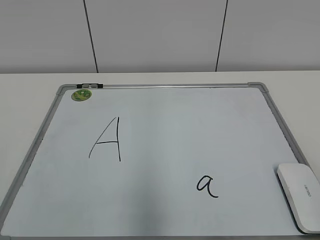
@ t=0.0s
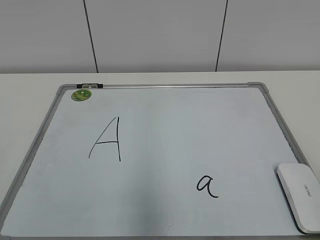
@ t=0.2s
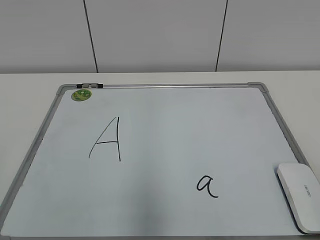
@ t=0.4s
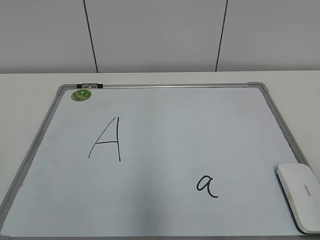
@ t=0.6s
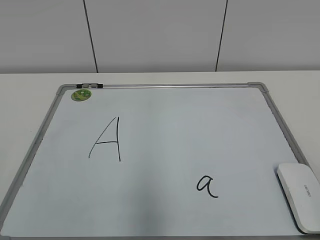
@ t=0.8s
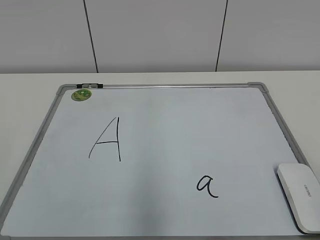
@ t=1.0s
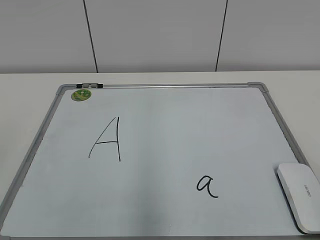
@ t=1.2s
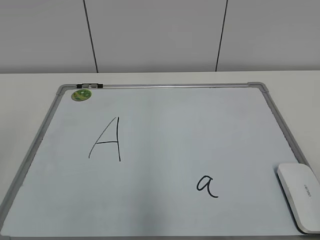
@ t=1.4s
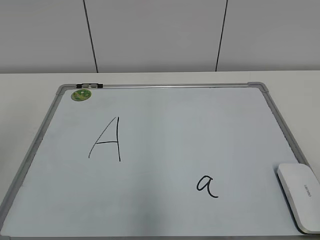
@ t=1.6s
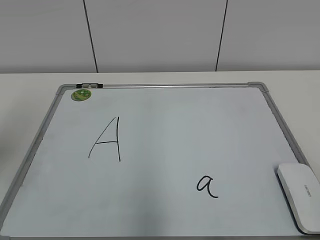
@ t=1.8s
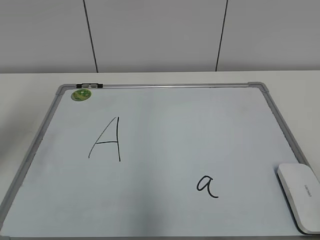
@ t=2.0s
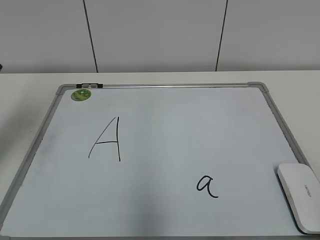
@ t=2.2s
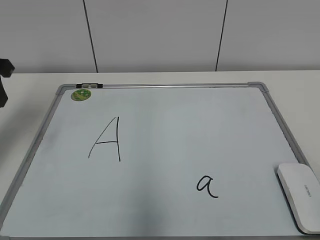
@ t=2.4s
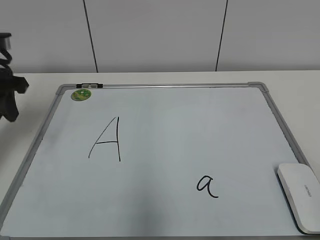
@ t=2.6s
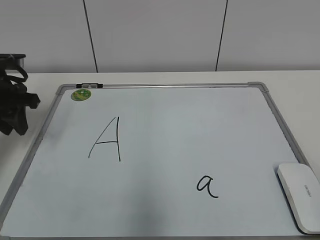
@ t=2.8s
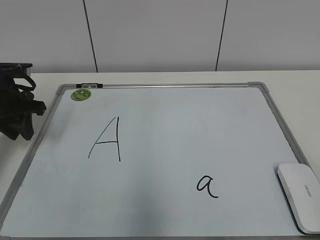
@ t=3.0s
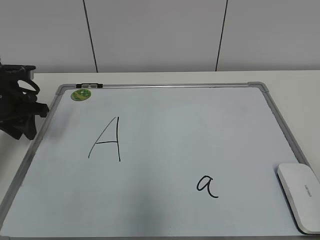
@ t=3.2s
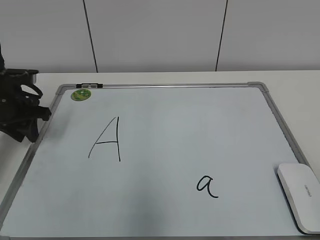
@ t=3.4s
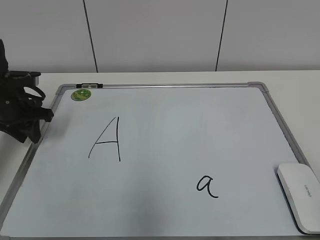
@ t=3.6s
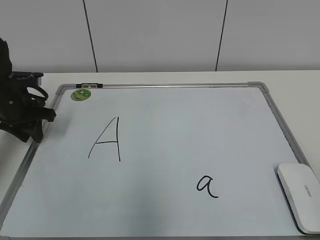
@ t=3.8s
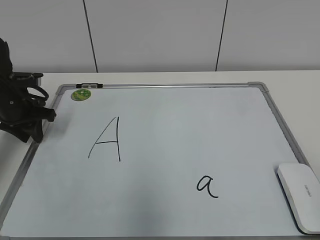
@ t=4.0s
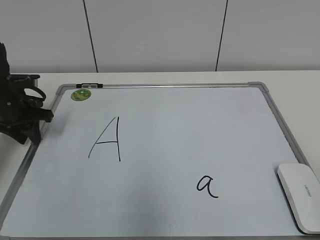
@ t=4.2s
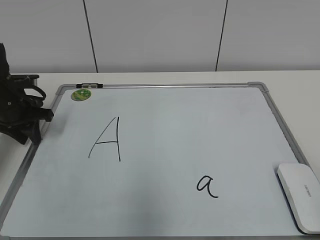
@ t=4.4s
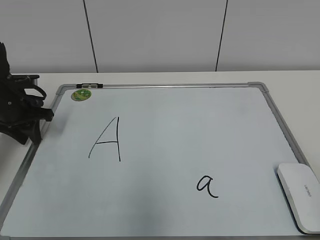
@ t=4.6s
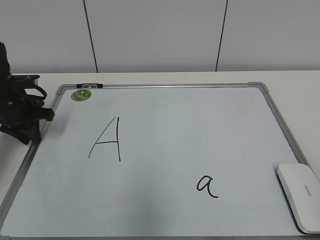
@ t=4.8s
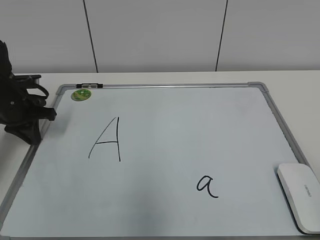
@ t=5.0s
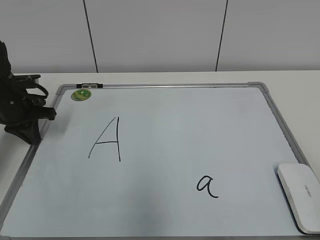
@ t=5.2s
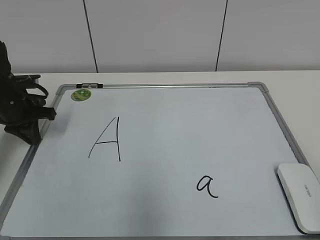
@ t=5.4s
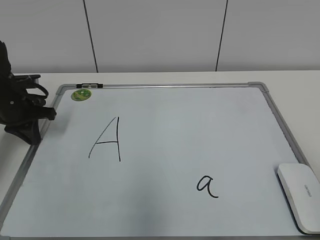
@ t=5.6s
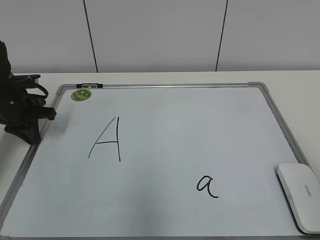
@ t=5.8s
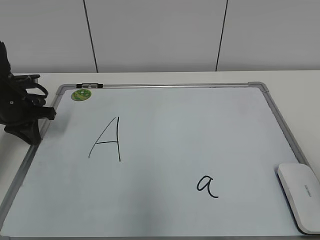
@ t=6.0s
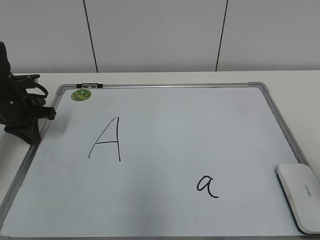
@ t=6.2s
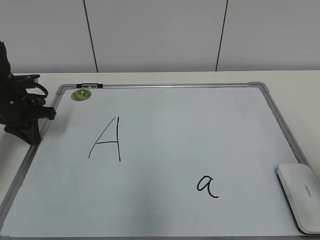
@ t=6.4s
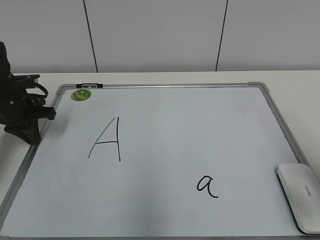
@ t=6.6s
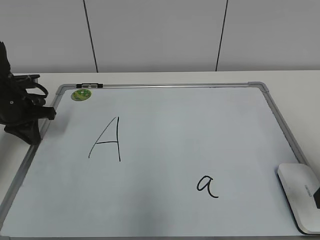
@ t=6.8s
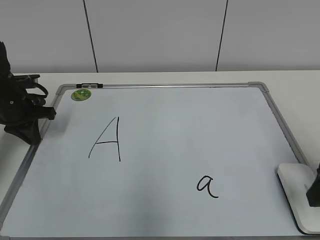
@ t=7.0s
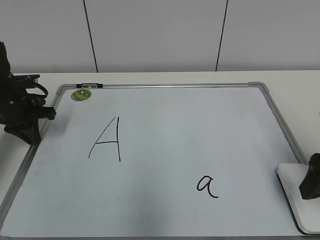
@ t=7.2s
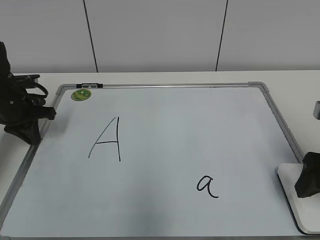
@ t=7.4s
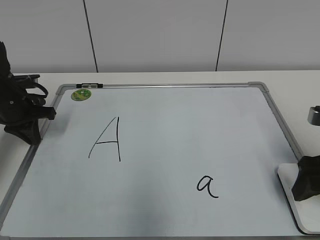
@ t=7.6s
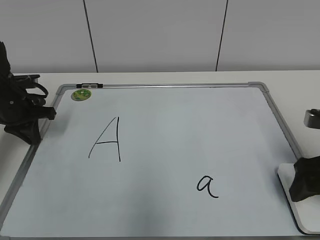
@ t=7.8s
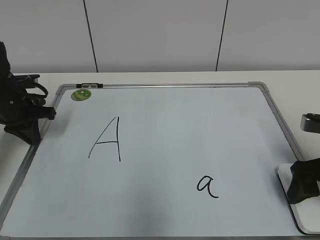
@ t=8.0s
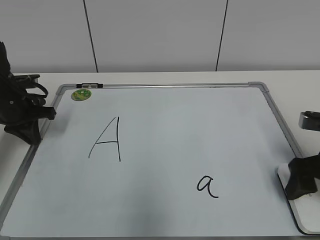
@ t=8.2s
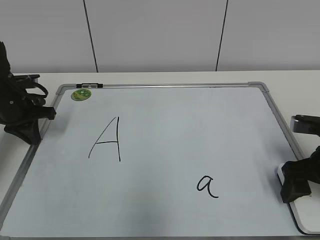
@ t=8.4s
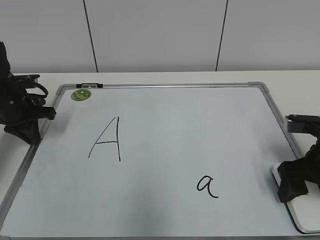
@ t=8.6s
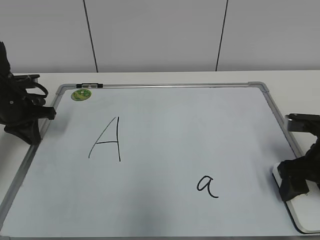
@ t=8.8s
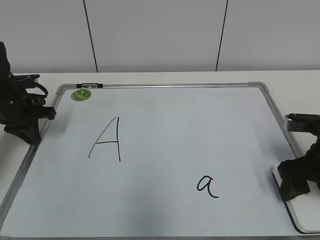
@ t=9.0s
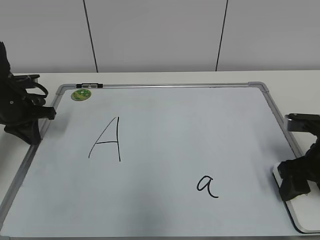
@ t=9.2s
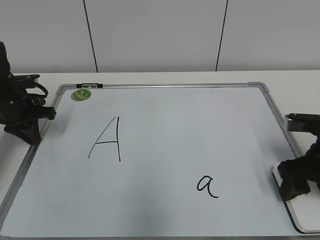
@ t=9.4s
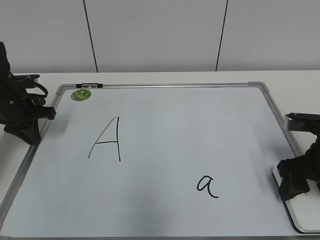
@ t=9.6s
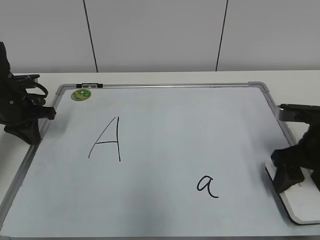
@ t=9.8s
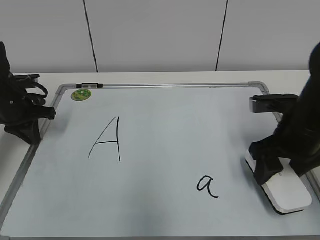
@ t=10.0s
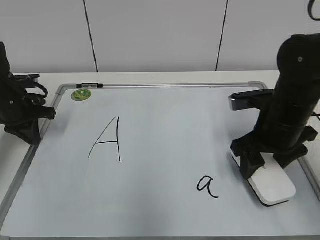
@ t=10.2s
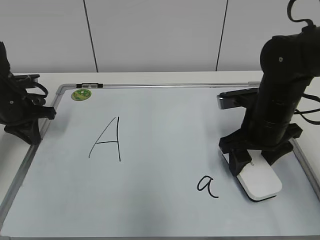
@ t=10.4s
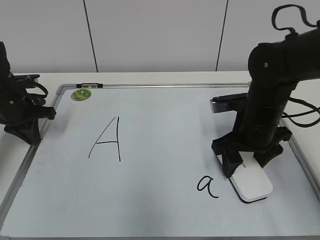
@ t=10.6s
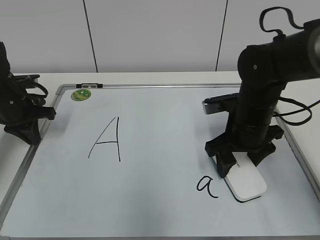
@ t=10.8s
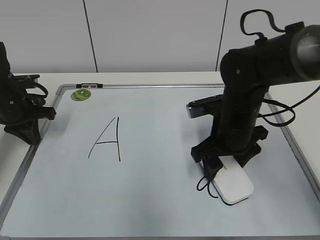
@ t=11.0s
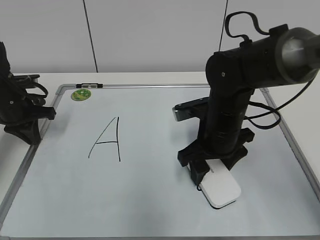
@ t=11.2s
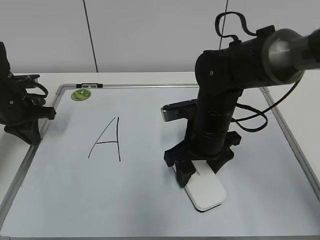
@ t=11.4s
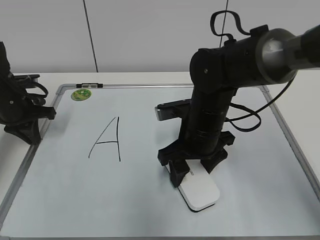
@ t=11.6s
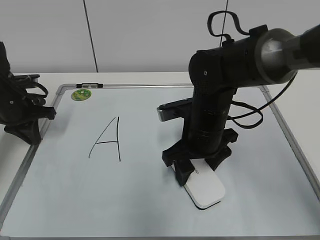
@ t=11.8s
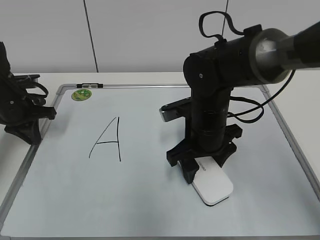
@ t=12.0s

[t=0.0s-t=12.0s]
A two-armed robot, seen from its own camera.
Task of the whole recording: pick up the eraser on the blackboard and erase the letter "a".
Step, t=0.0s to t=5.6s: Hold the drawing board steady with your left hand.
Step, t=6.0s to t=9.0s: Grab the eraser with your right hand.
t=1.6s to t=3.0s: The left gripper is displaced forward and downward by about 30 cm.
t=3.0s to t=4.4s: The left gripper shifts by approximately 5 cm.
t=6.0s to t=7.6s: The right gripper goes approximately 20 cm forward and downward, and opens up.
t=7.6s to t=9.0s: The right gripper closes its fingers.
t=9.0s to t=10.4s: The right gripper heads to the left and forward, covering some 10 cm.
t=10.4s to t=12.0s: The right gripper is displaced to the left by approximately 10 cm.

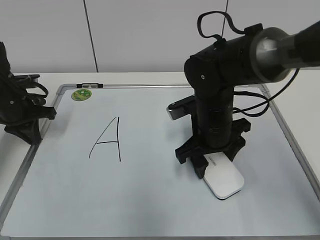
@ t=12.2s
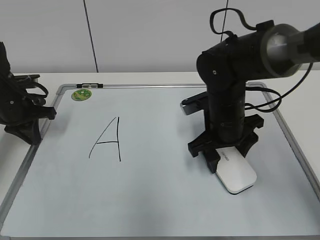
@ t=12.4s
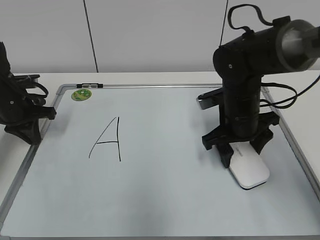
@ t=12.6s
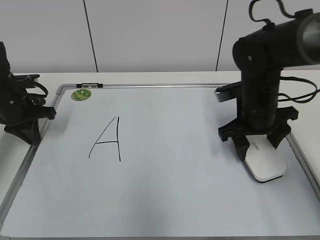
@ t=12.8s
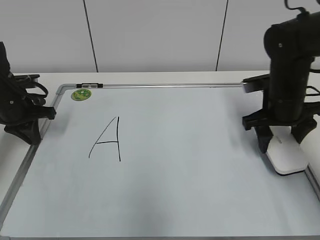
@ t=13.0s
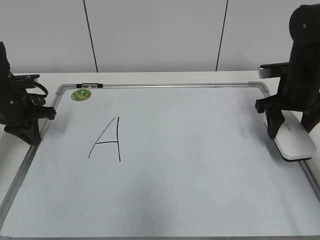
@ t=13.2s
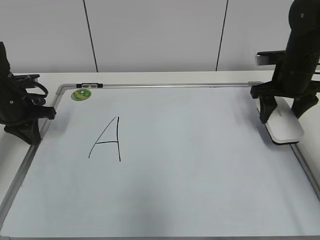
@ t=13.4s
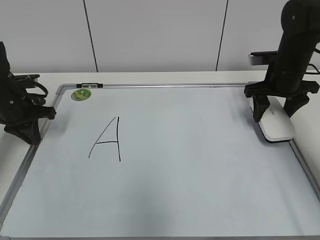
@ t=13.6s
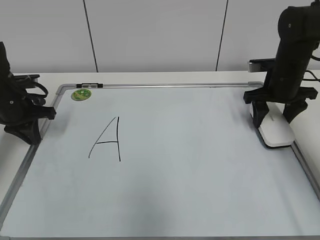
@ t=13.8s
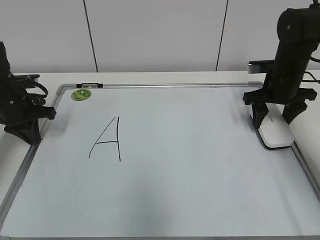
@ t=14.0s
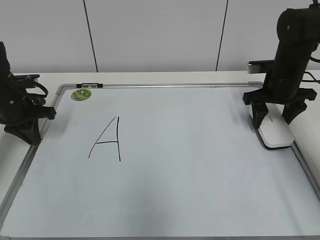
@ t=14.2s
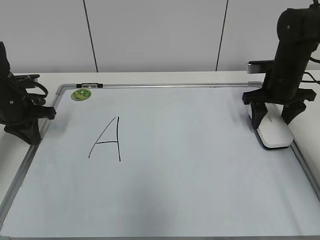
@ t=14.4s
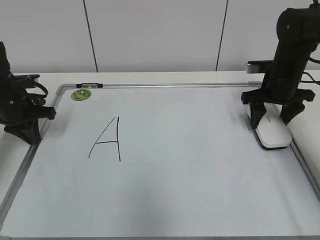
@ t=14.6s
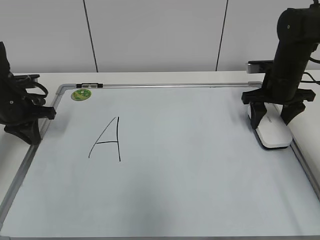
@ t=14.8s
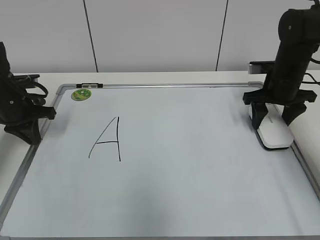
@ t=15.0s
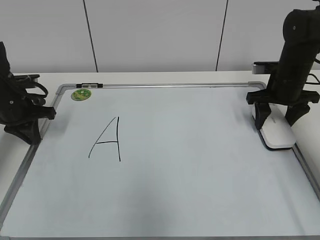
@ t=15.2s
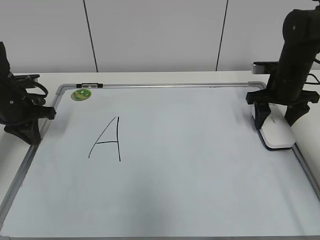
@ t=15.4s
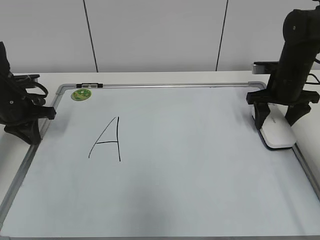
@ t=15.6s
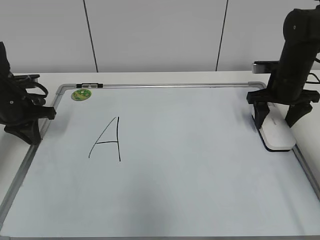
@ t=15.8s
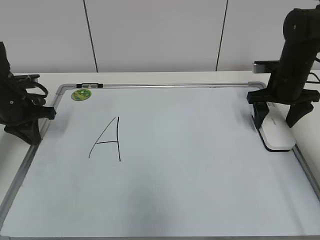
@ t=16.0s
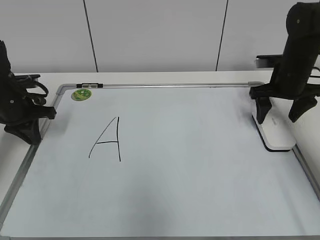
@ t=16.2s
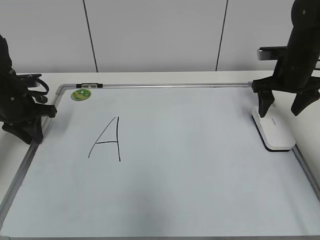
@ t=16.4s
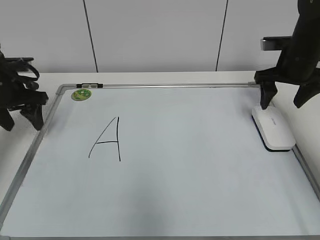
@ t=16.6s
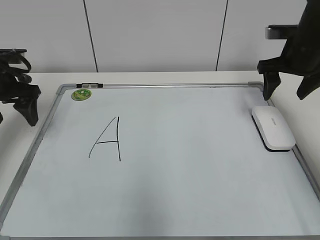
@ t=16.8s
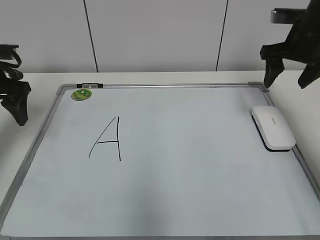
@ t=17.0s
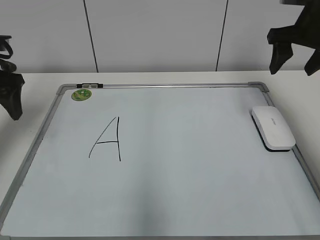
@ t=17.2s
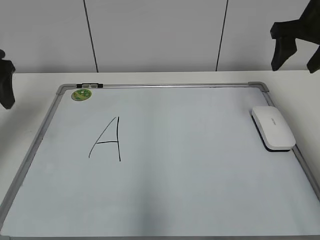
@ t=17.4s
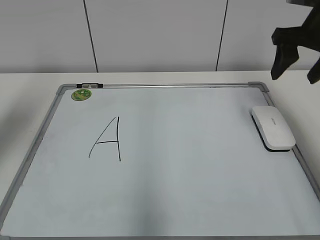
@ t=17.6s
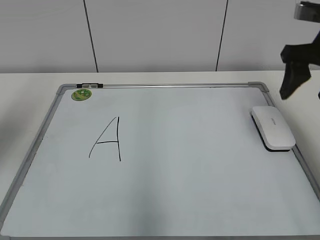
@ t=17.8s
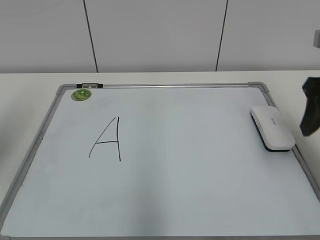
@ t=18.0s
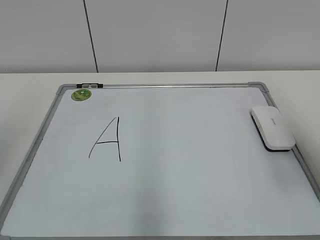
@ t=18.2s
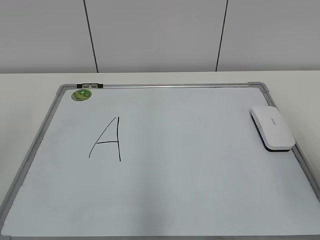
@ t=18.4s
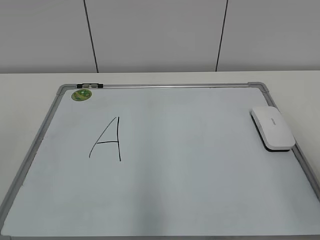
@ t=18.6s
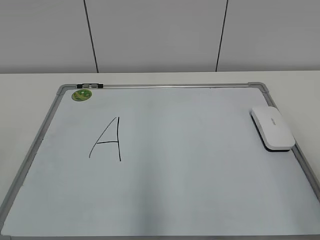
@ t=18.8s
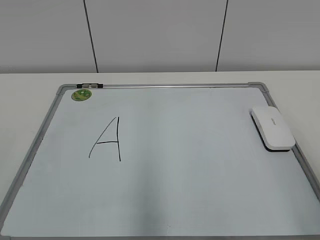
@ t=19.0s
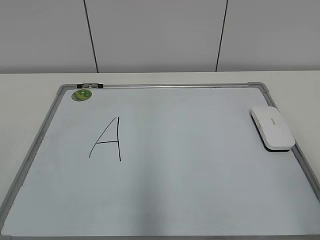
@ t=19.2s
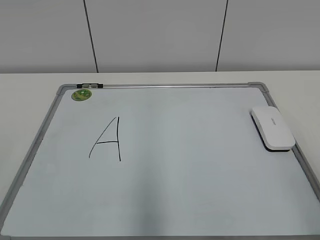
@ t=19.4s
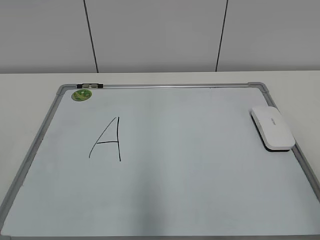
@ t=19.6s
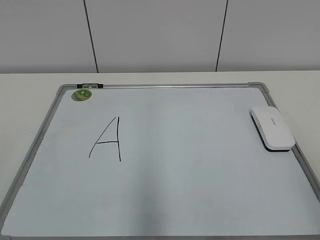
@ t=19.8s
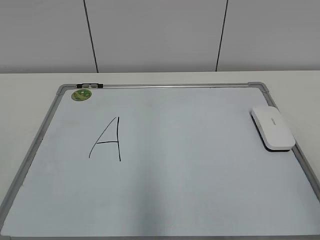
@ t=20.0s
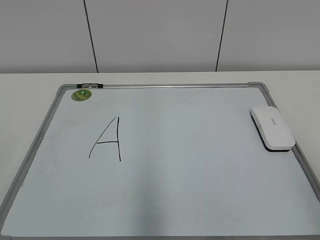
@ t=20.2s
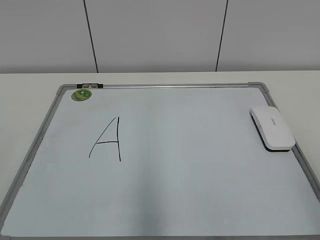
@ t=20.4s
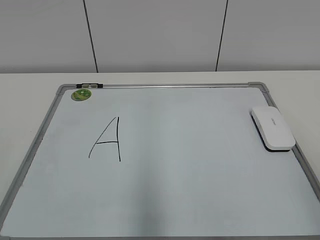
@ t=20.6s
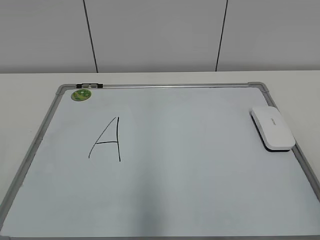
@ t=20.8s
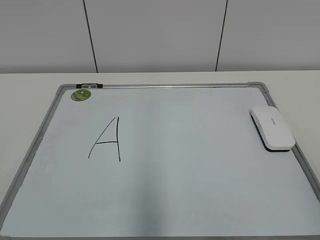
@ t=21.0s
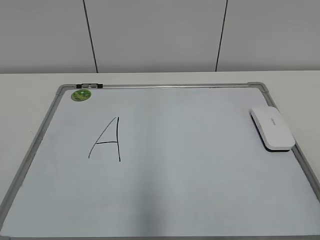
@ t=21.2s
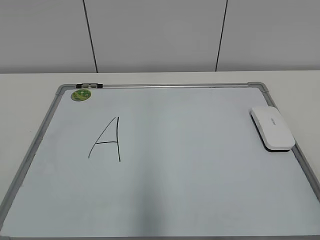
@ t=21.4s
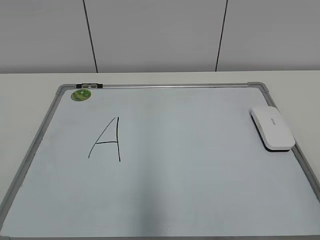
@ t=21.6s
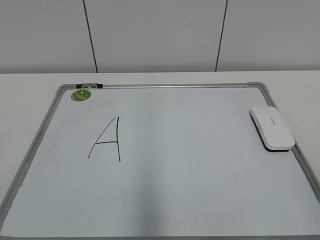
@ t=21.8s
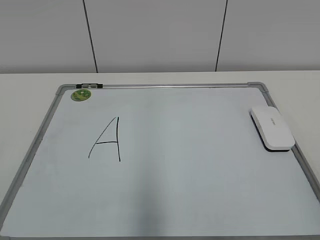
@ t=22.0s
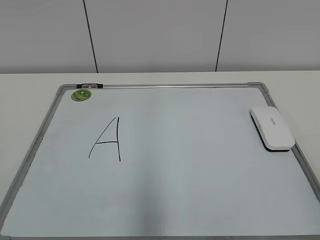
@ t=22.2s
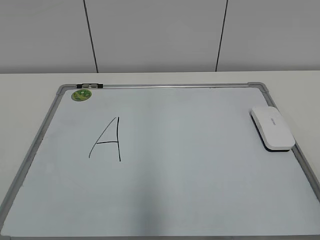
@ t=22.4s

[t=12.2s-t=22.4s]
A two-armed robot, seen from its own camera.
Task of the whole recording: pick up the eraser on the blackboard and erase the letter "a".
Step, t=12.6s to t=15.6s: Put down the eraser with your right hand.
Step, t=16.0s to t=16.2s: Secure the drawing board with your left hand.
t=12.2s to t=13.6s: The right gripper shifts approximately 20 cm to the right and forward.
t=13.6s to t=15.2s: The grippers stay close to where they were, moving slightly.
t=15.2s to t=16.6s: The left gripper opens its fingers. Meanwhile the right gripper opens up.
t=16.6s to t=18.0s: Both grippers move backward and upward, roughly 20 cm.
t=18.0s to t=19.4s: The right gripper shifts approximately 25 cm backward.
